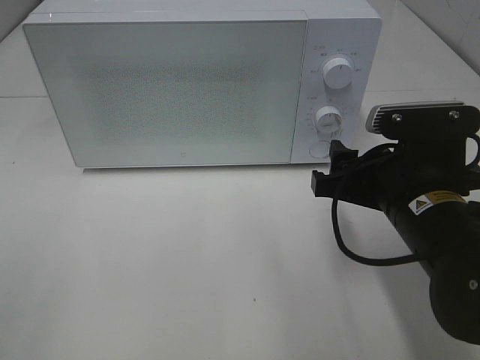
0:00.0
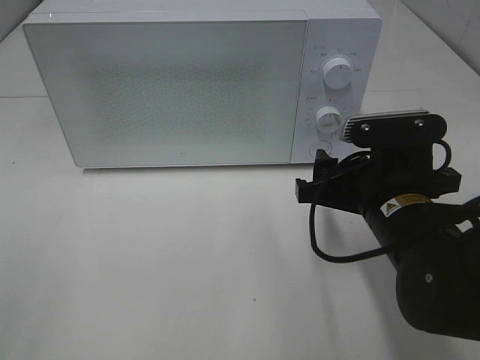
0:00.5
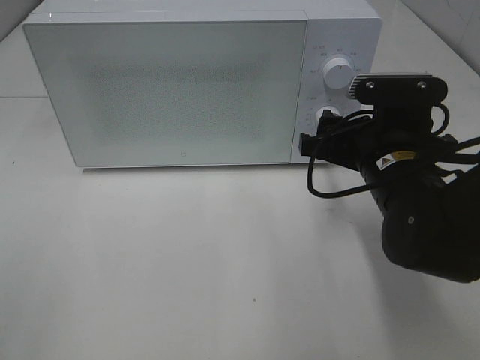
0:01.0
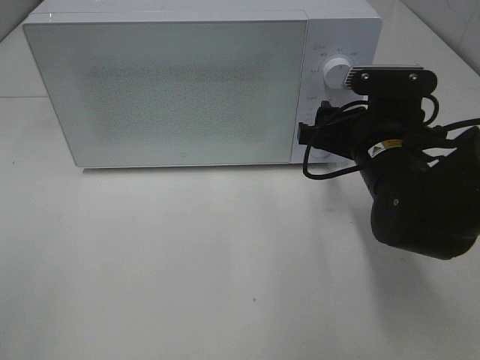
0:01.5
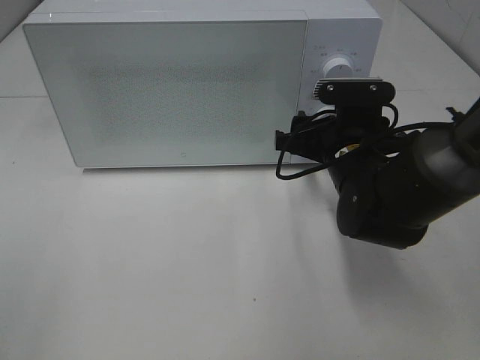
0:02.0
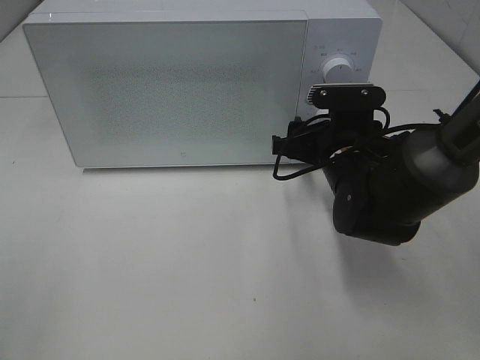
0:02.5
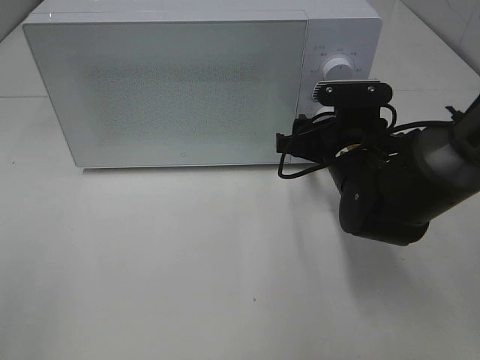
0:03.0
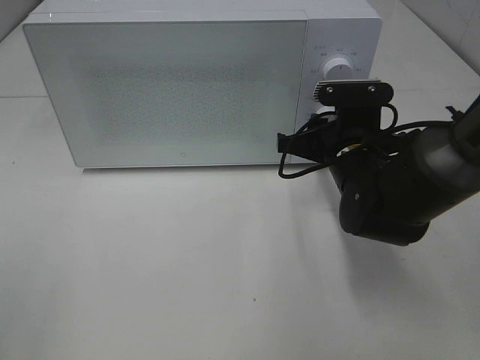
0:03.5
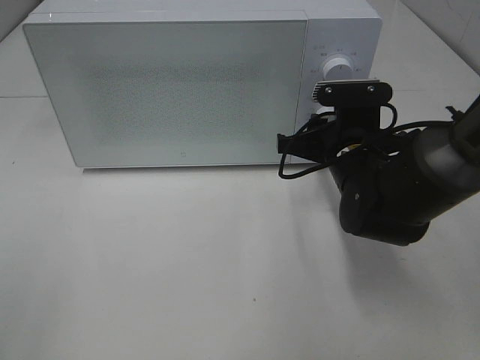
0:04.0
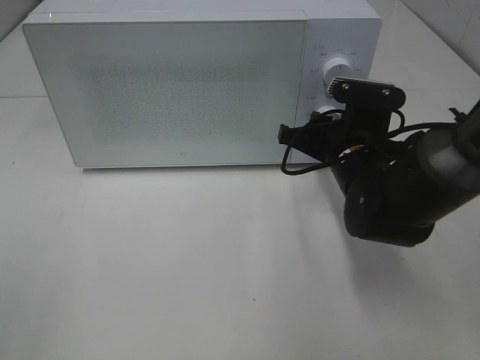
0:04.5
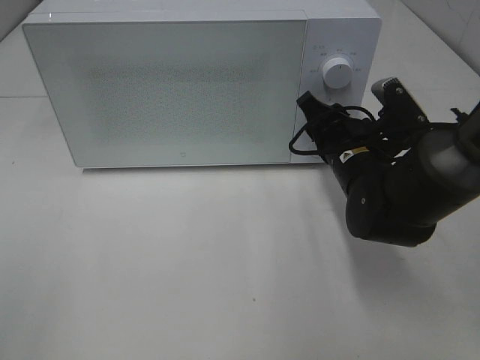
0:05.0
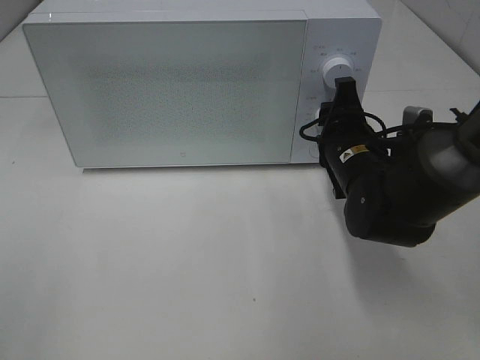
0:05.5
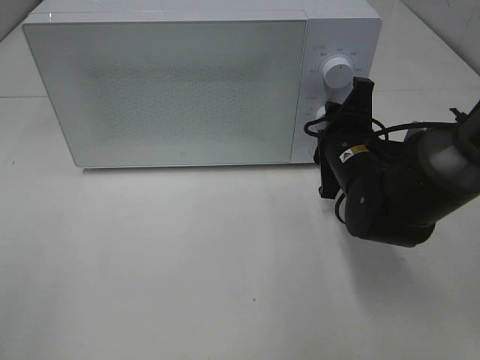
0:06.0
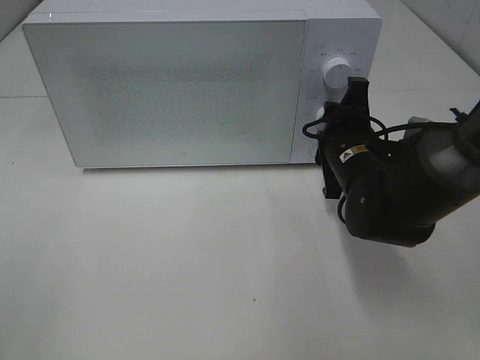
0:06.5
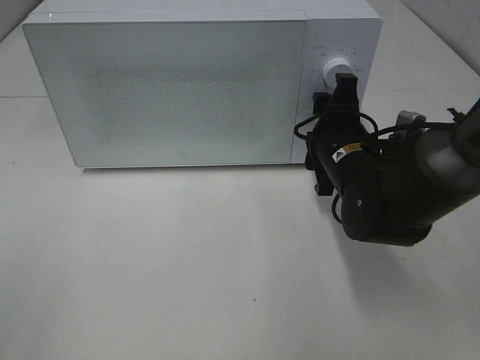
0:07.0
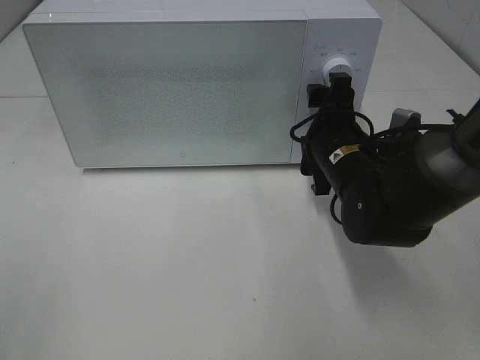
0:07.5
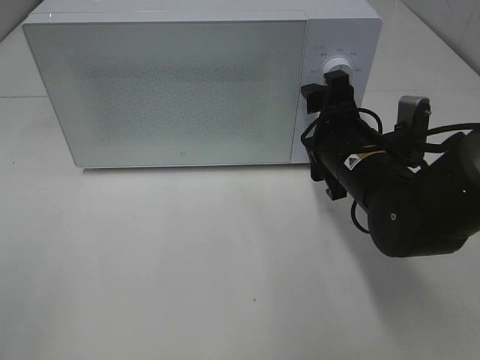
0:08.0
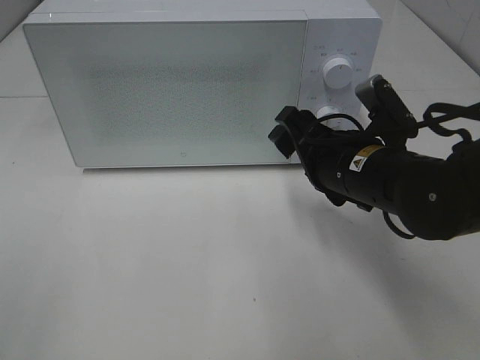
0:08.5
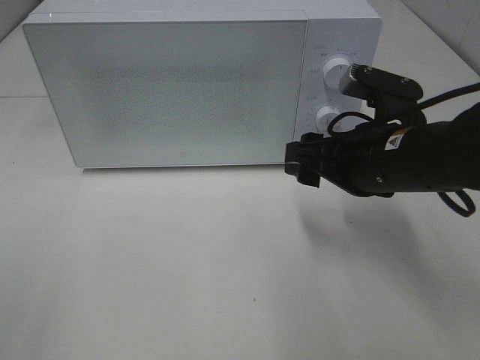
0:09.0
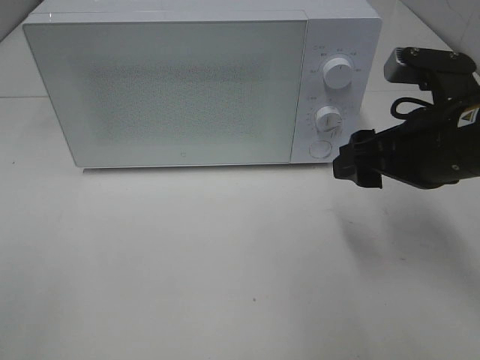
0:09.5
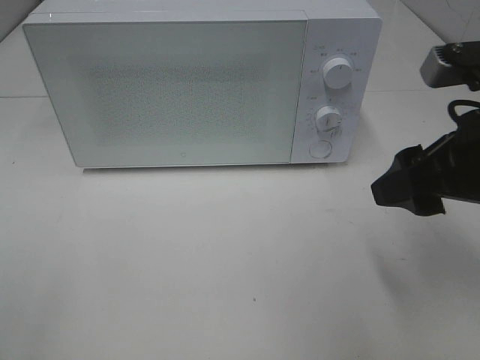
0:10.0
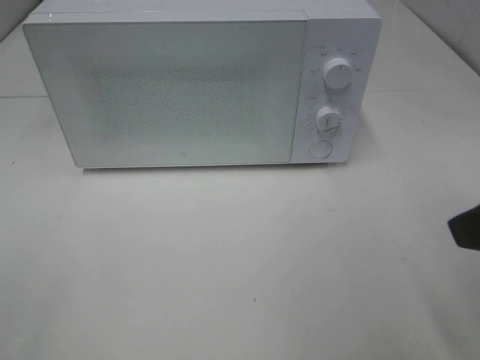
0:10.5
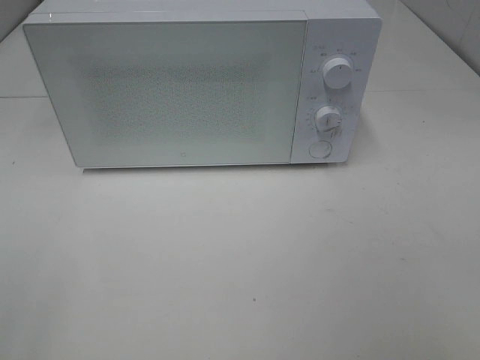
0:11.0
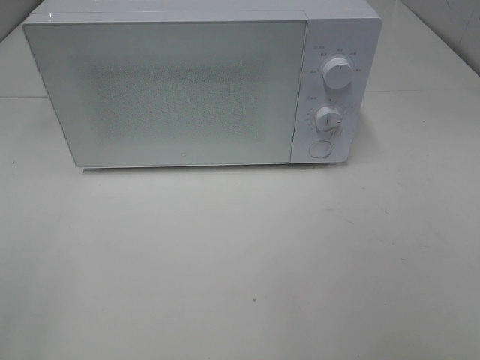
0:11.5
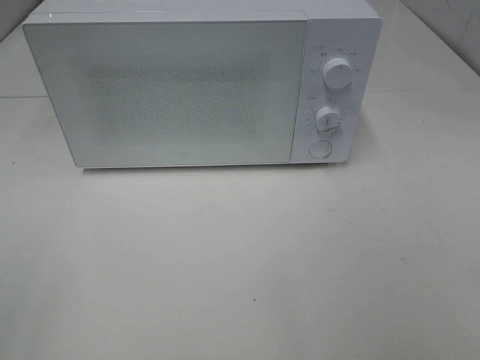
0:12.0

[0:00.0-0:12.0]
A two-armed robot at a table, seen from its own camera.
Task of the whole recording: Heat Sandwich.
Step, 0:00.0 to 0:07.5: Right hand: twist timer button.
0:00.0 to 0:02.0: The right gripper goes approximately 10 cm forward.
0:02.0 to 0:04.0: The right gripper closes.
0:06.0 to 0:08.0: The right gripper opens up.
0:08.0 to 0:10.0: The right gripper is displaced upward, backward and to the right by roughly 15 cm.
0:10.0 to 0:12.0: The right gripper moves backward and to the right, some 20 cm.

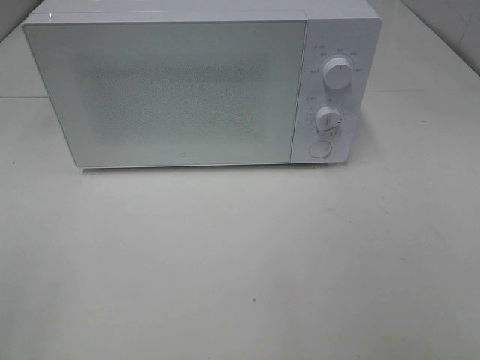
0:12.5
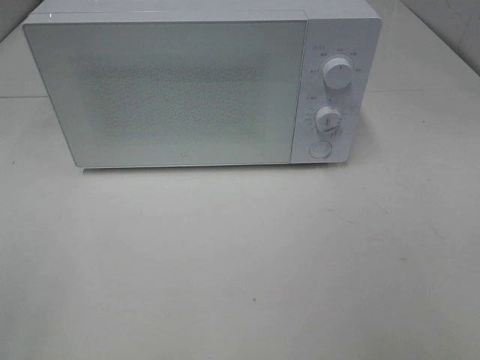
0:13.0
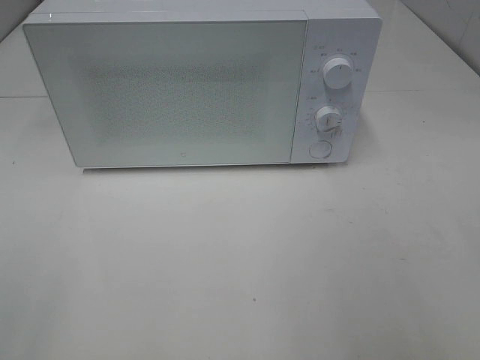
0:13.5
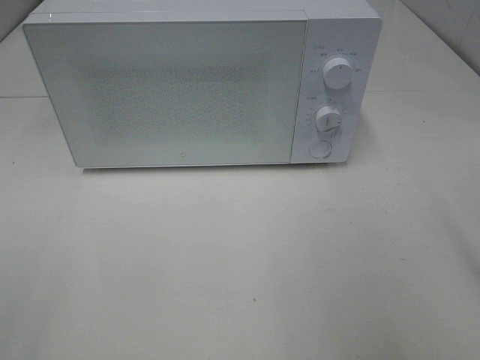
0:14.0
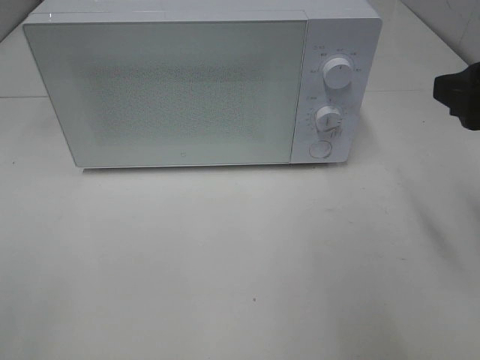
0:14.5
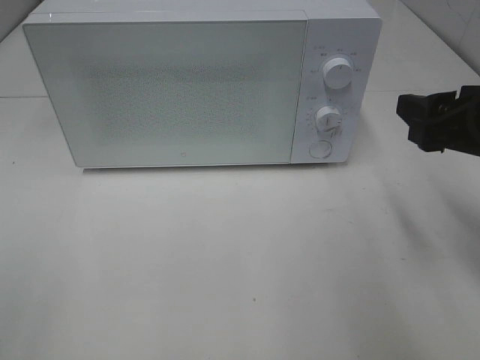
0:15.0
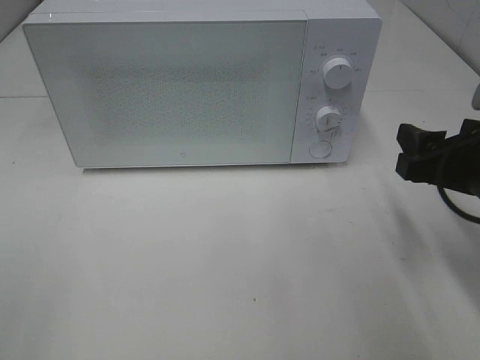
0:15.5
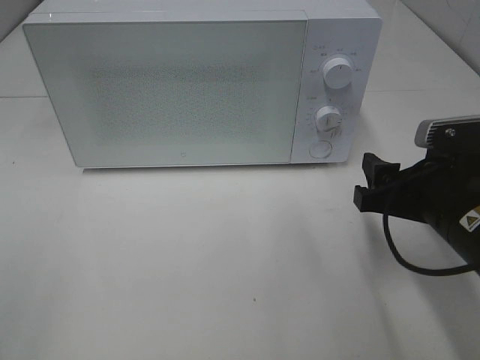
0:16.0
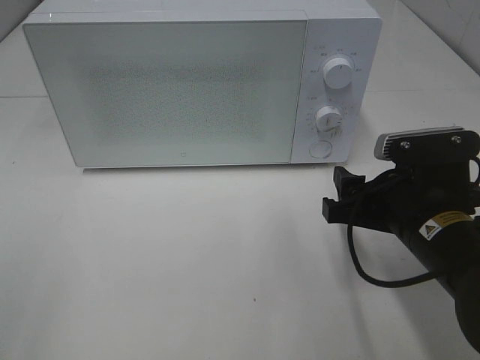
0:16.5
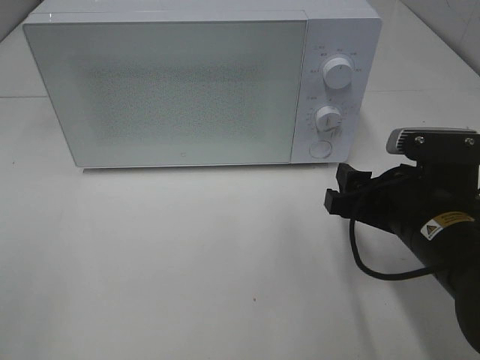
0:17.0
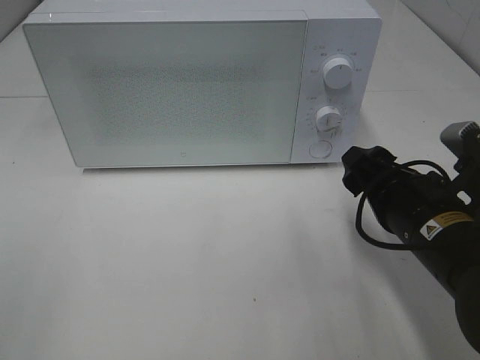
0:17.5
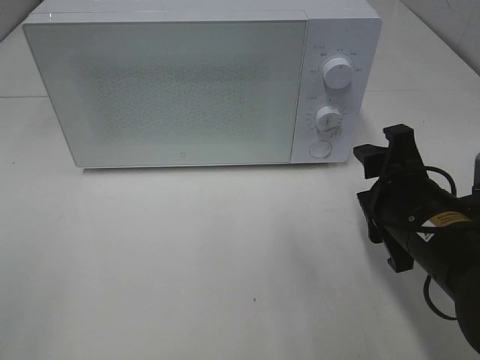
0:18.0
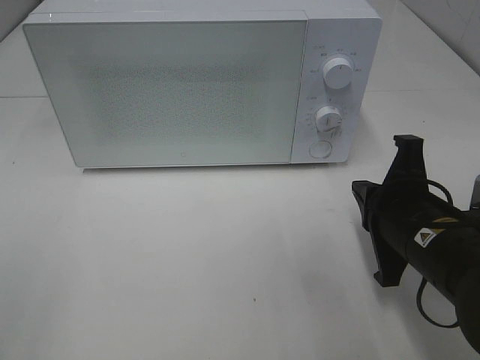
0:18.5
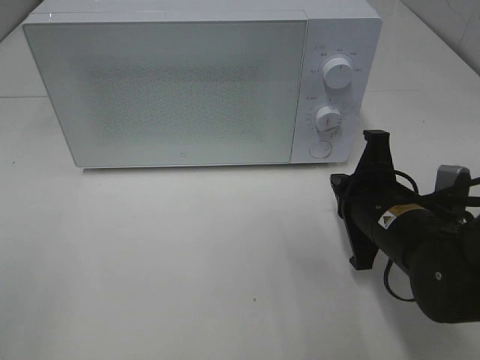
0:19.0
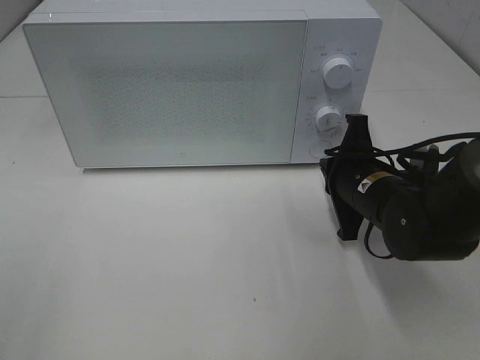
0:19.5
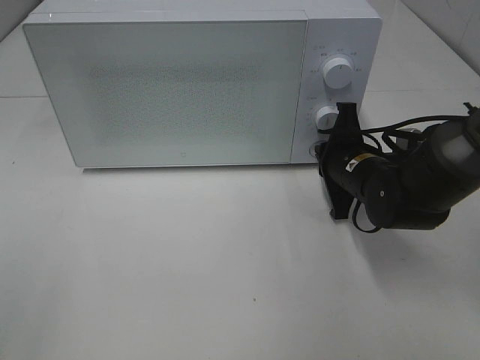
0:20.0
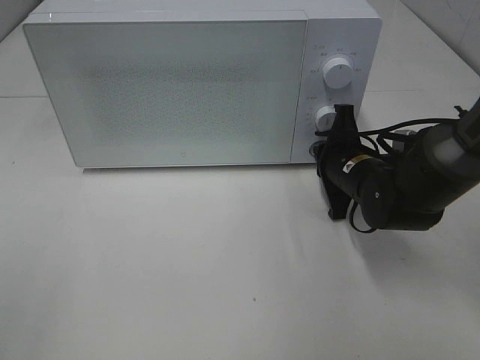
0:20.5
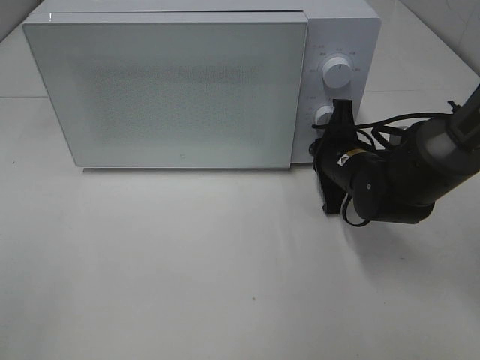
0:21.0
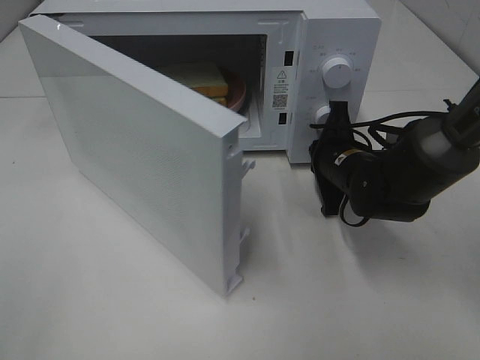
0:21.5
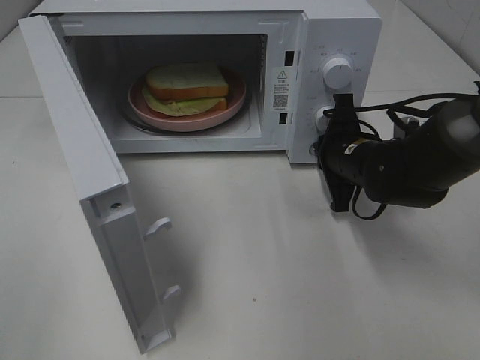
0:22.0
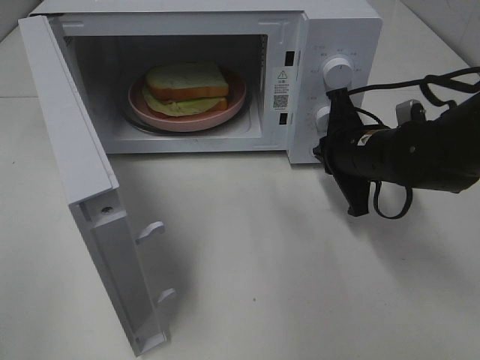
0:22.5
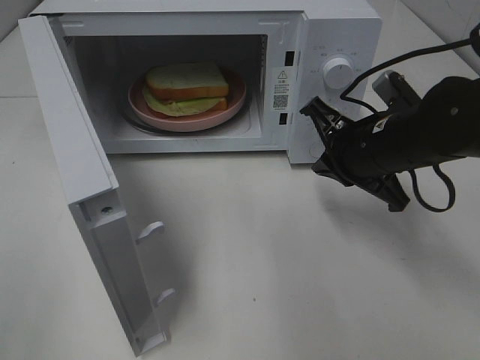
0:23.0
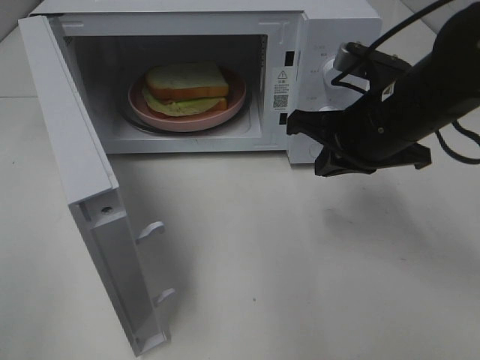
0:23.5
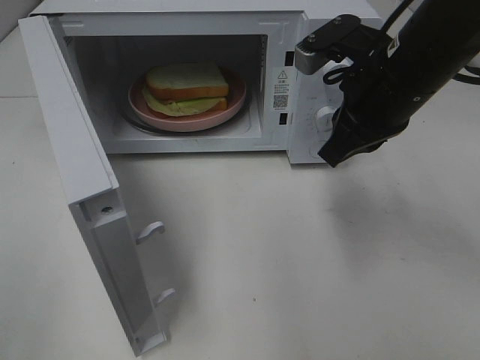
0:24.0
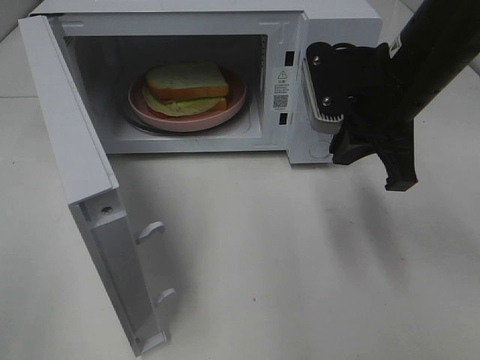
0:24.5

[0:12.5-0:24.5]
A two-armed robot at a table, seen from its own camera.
Task of the whole recording: Heat Sandwich.
Step, 0:12.5 to 0:22.0: Right hand: press the switch.
0:12.5 to 0:14.5: The right gripper moves forward, roughly 20 cm.
0:14.5 to 0:16.5: The right gripper travels downward and to the left by roughly 15 cm.
0:16.5 to 0:18.5: The right gripper closes its fingers.
0:18.5 to 0:20.5: The right gripper travels forward by some 15 cm.
0:20.5 to 0:22.5: The right gripper moves roughly 5 cm.
0:22.5 to 0:24.5: The right gripper goes about 10 cm upward.

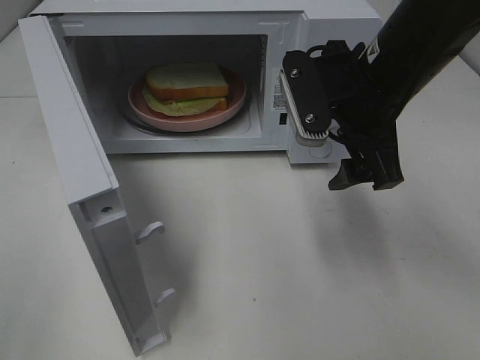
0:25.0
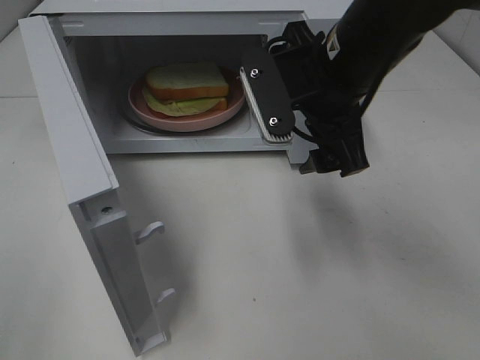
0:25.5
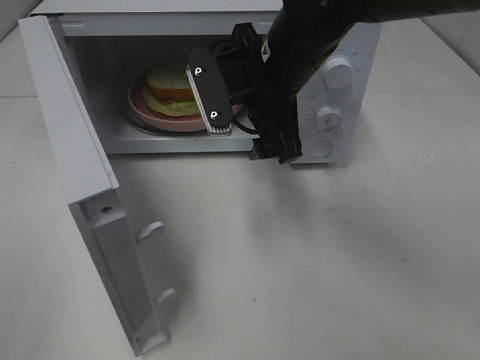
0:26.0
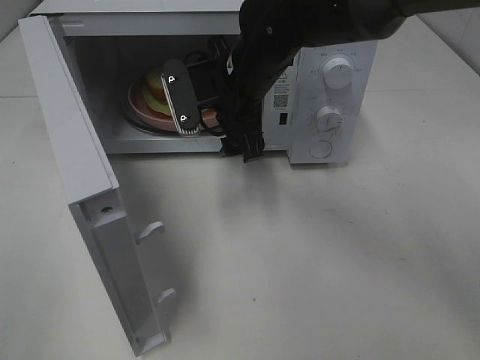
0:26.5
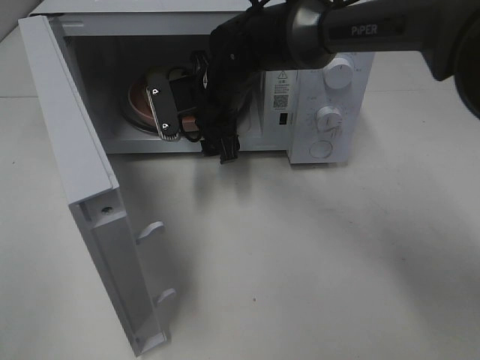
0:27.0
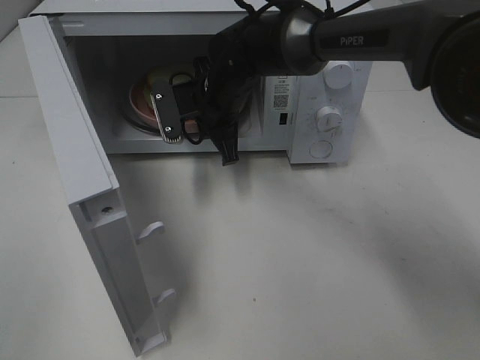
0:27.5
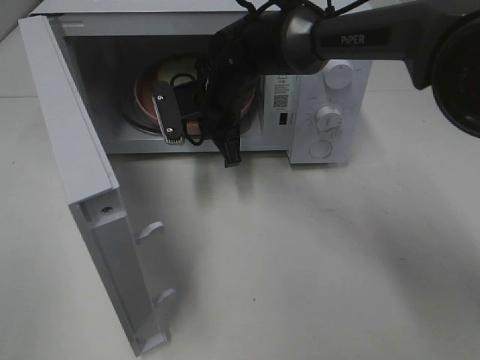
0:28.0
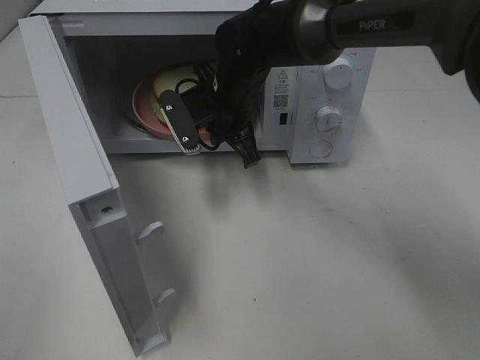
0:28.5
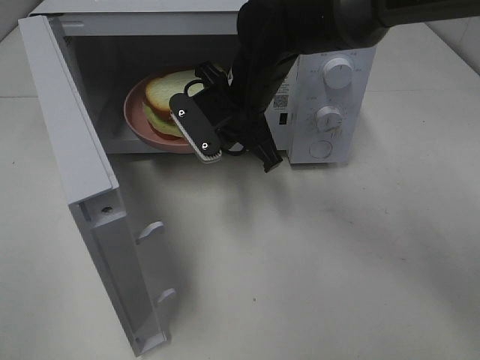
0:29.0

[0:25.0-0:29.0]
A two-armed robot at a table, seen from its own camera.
Task of the whole recording: Heat Sandwich.
Step, 0:25.0 to 0:28.0: Right hand: grab the plate with the sandwich.
0:25.0 to 0:27.0: The right gripper is displaced to the left, forward and downward by some 20 cm.
0:27.0 to 0:29.0: The right gripper shifts by about 5 cm, and closes up.
